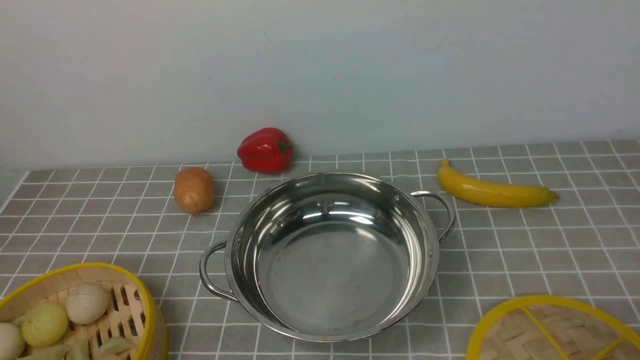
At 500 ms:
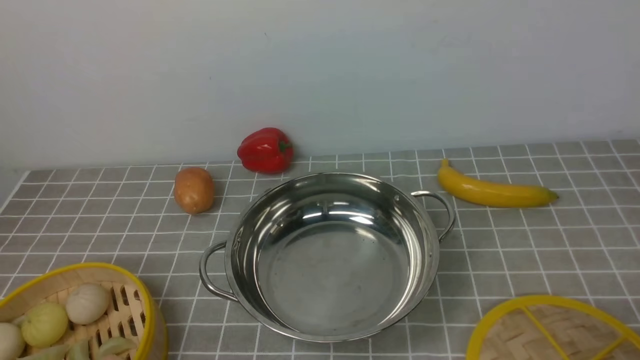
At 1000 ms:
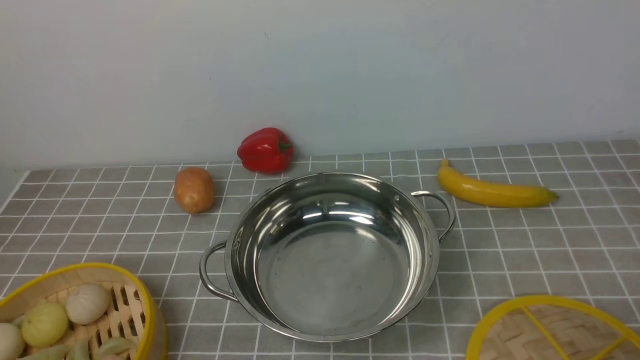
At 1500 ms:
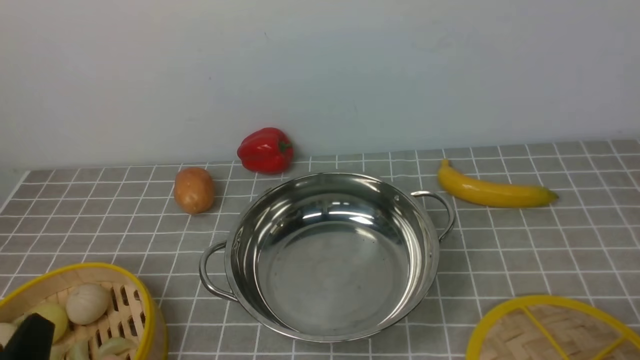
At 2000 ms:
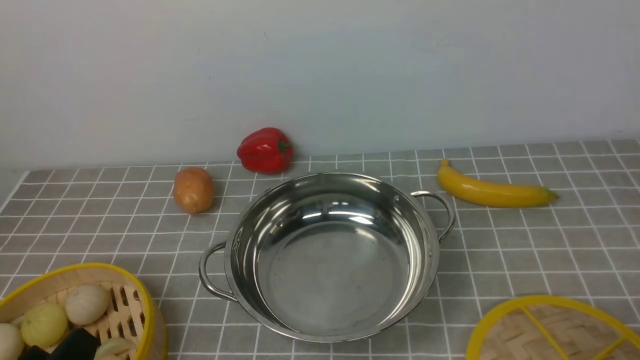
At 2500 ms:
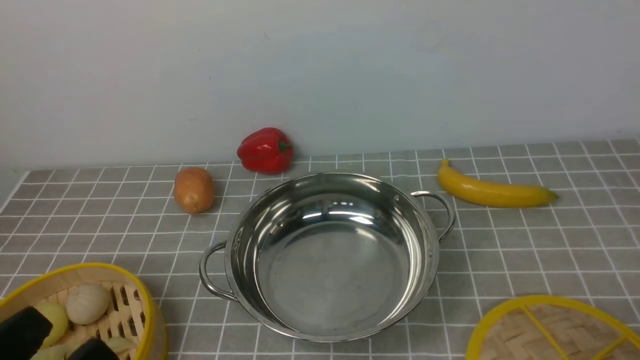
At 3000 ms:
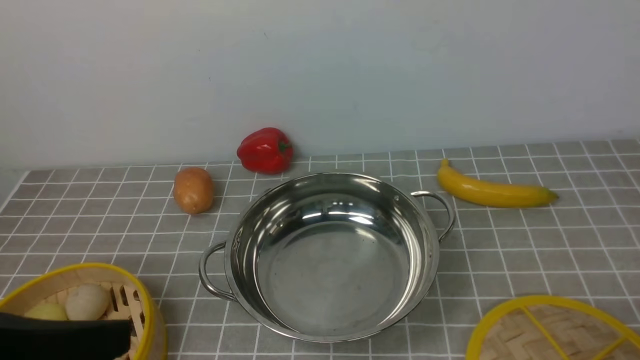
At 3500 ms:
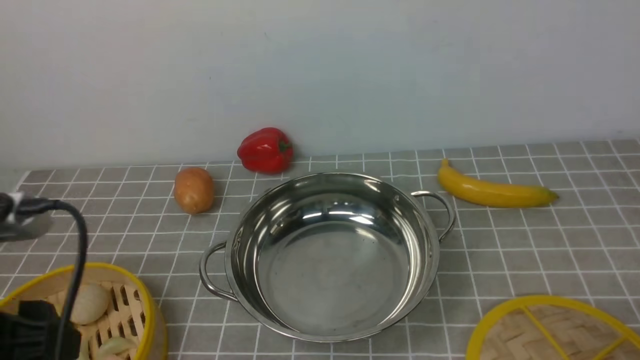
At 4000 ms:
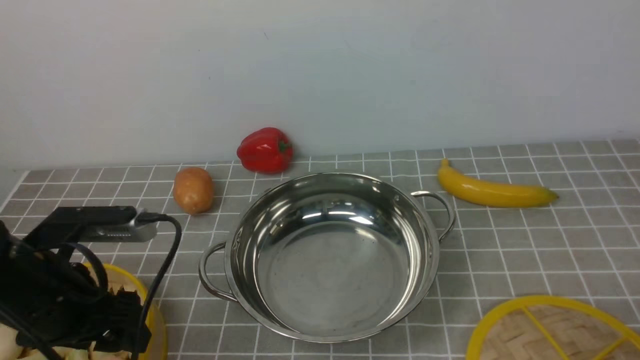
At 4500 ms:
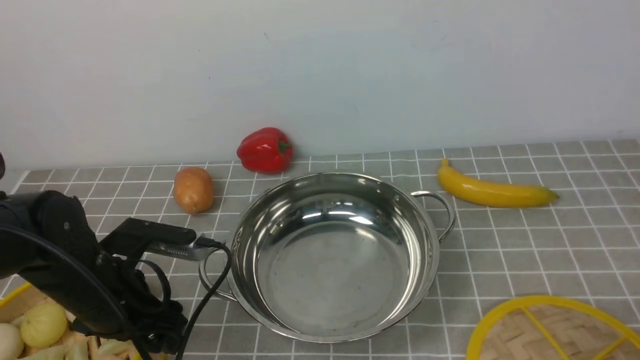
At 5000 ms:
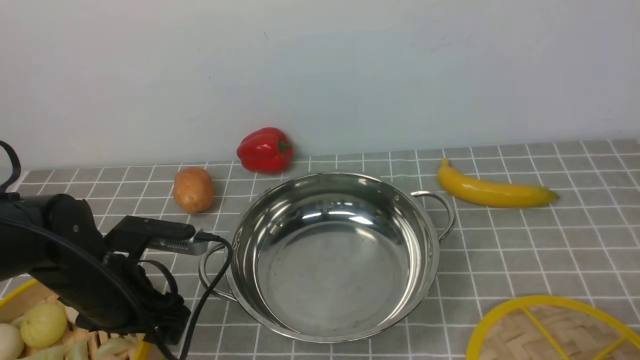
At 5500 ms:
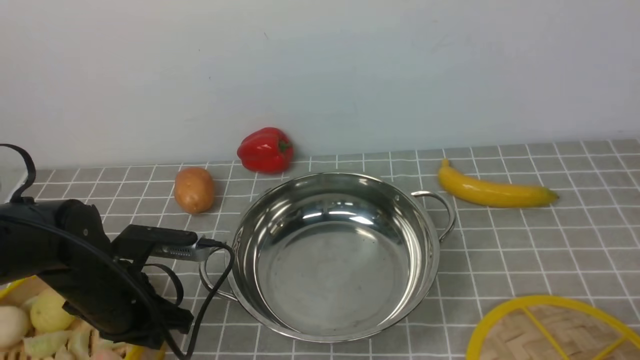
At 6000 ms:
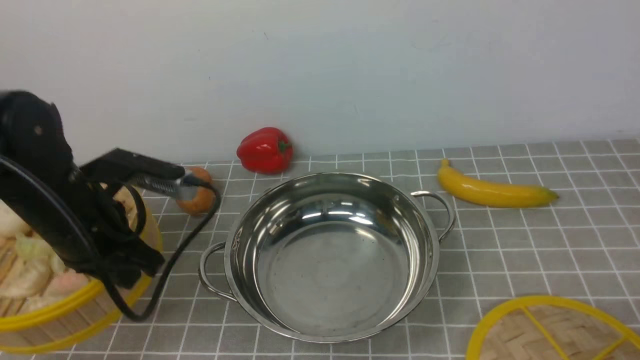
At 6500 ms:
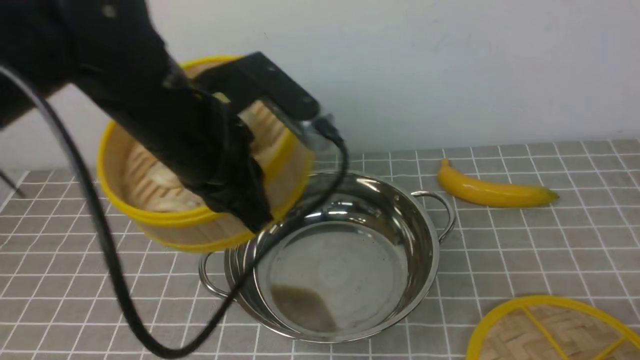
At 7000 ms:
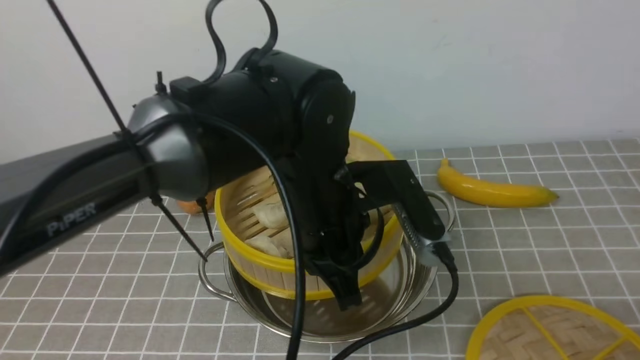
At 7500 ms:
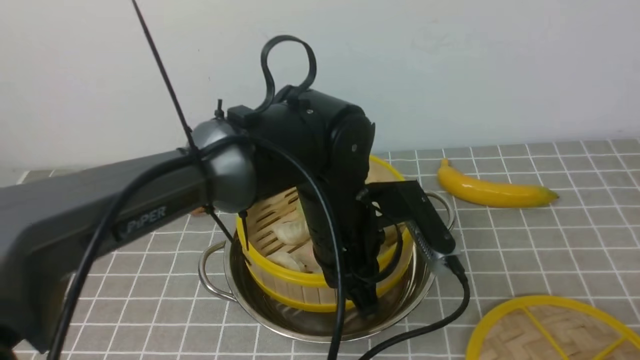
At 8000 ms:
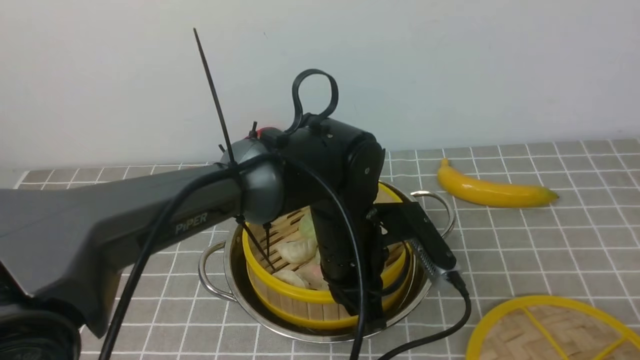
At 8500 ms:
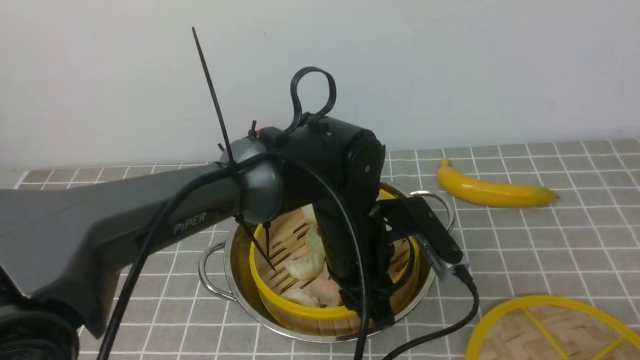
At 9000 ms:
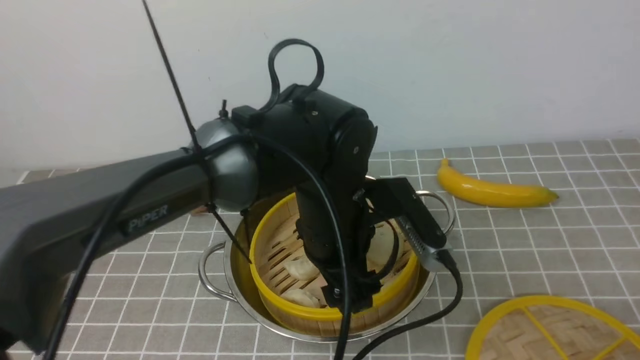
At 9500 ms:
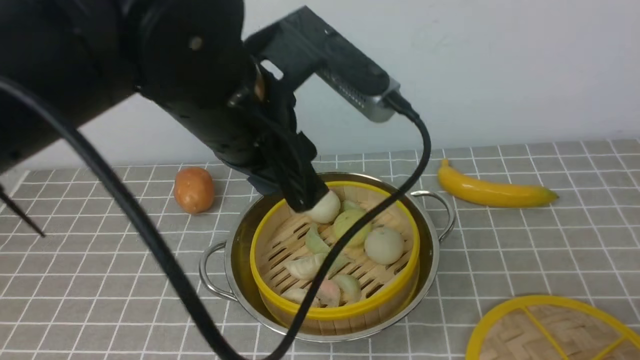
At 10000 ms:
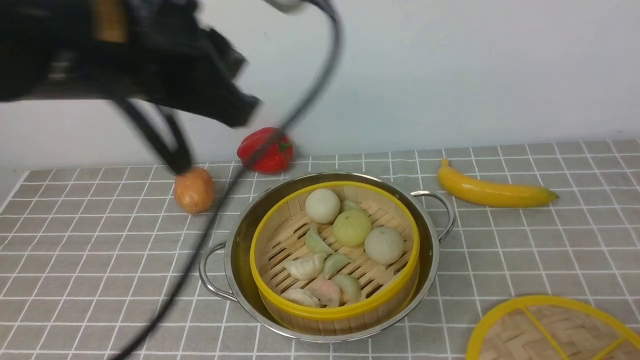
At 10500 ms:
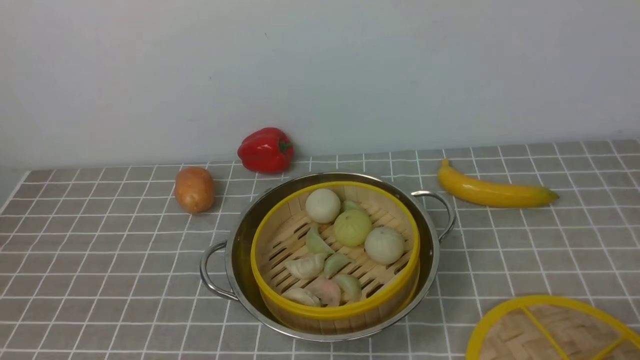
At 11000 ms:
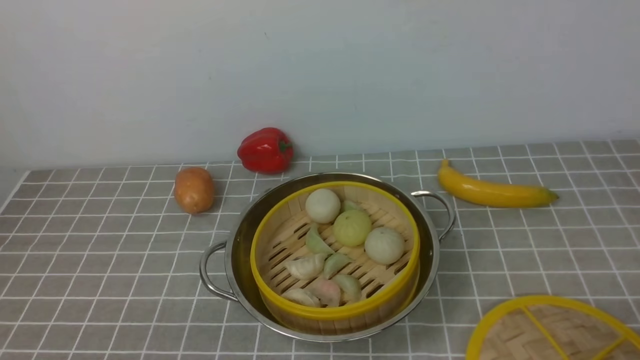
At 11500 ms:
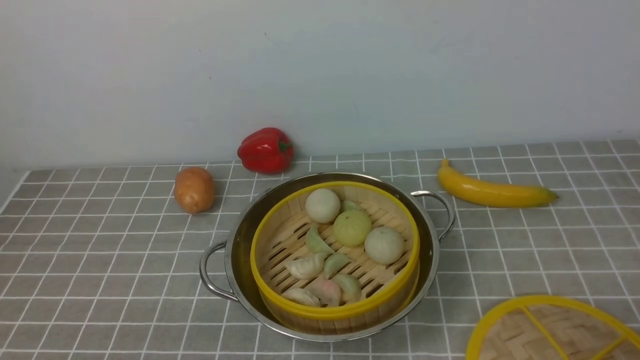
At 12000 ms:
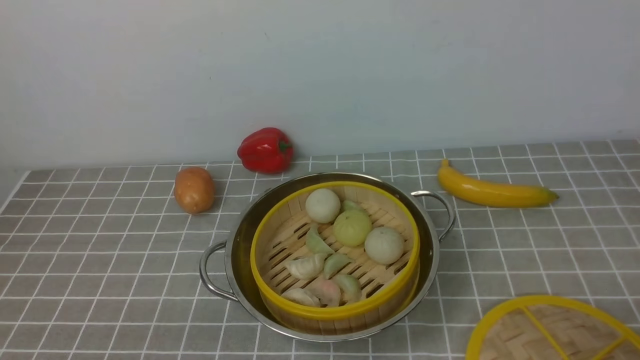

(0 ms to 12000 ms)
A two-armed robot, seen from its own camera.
Task of the whole recording: place the steamer in the pot on the grey tablecloth, and put the lid on the steamer.
Step, 0 ms - 5500 ms: use the left arm to lift the steamer closest to it.
Step, 6000 ms - 8500 ms: use the left arm to put the steamer into the iron steamer pot in the middle.
2000 ms - 4000 ms: The left gripper heads forward, covering about 15 cm.
4000 ms - 6000 ms: The left gripper goes approximately 5 cm forward, travels downward and back again, roughly 5 cm each way, and closes up.
6000 ms - 8000 ms: The left gripper shifts approximately 25 cm to the right.
8000 ms - 10000 ms: The left gripper heads upward and to the left, covering about 30 cm, and opens and closes again.
10000 ms - 12000 ms: The left gripper is displaced downward, backward and to the left by roughly 30 cm.

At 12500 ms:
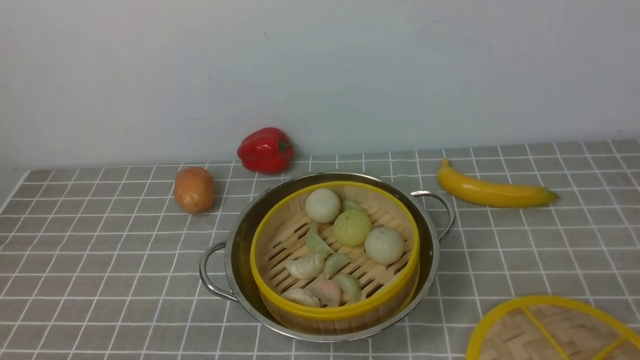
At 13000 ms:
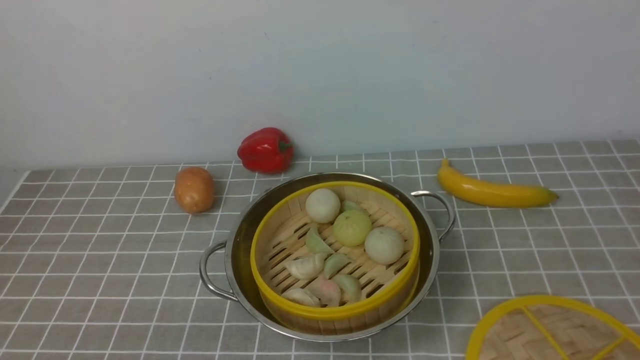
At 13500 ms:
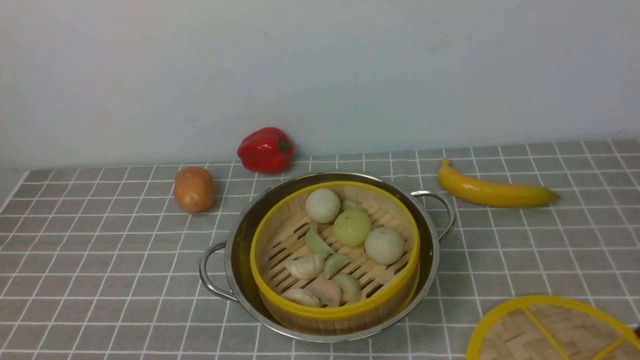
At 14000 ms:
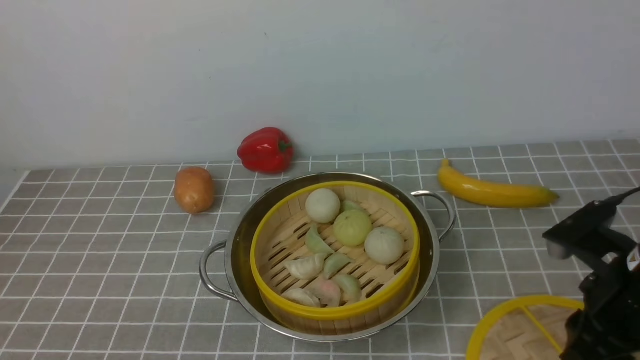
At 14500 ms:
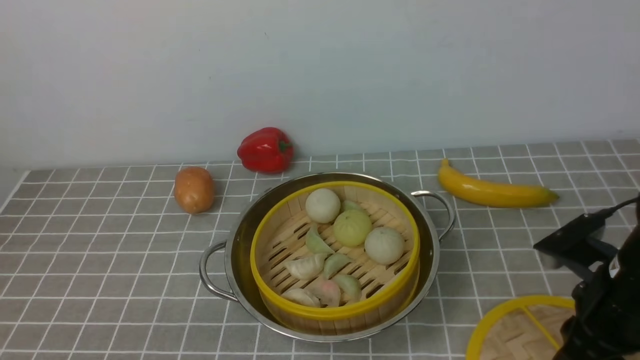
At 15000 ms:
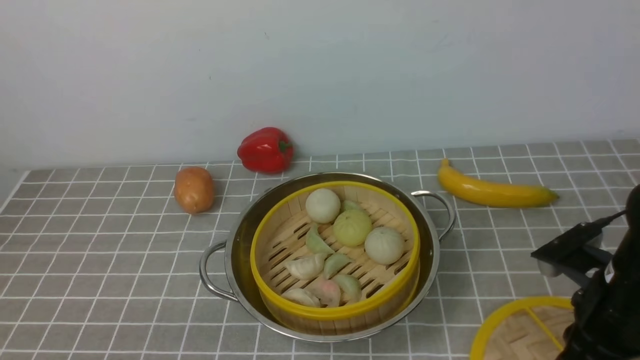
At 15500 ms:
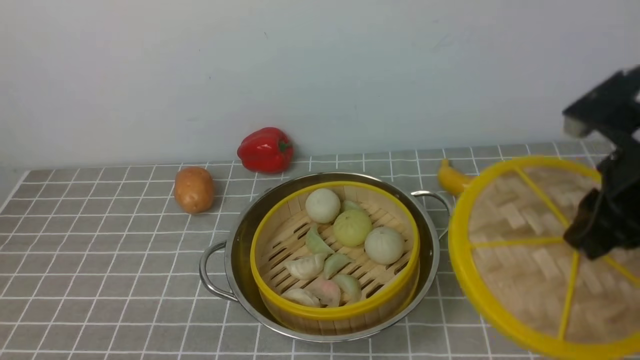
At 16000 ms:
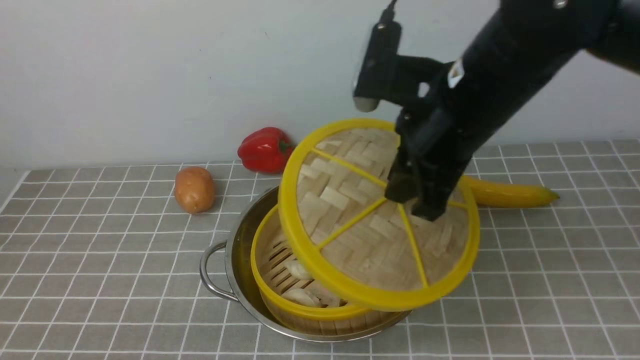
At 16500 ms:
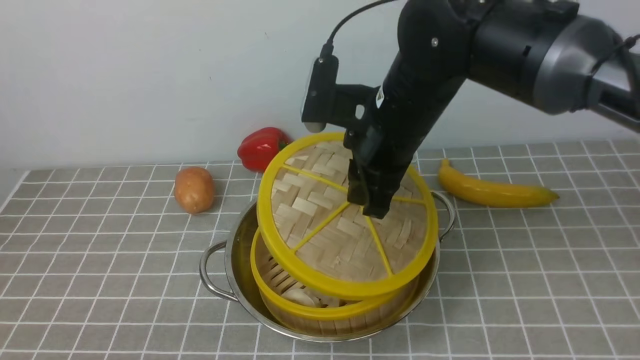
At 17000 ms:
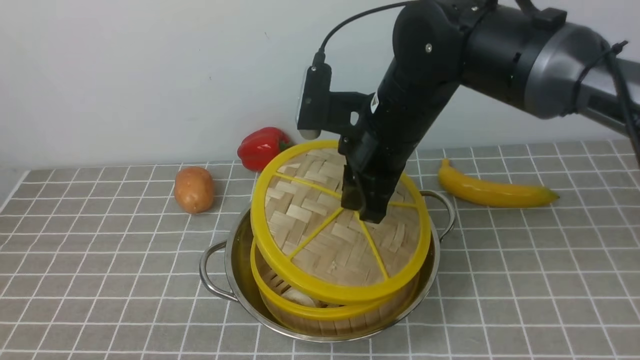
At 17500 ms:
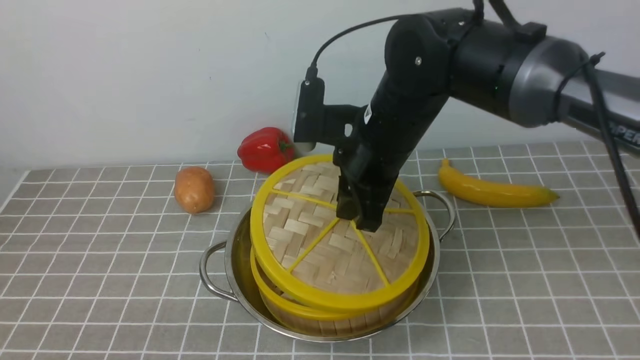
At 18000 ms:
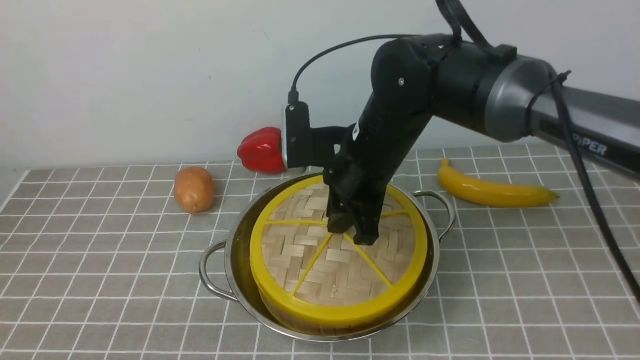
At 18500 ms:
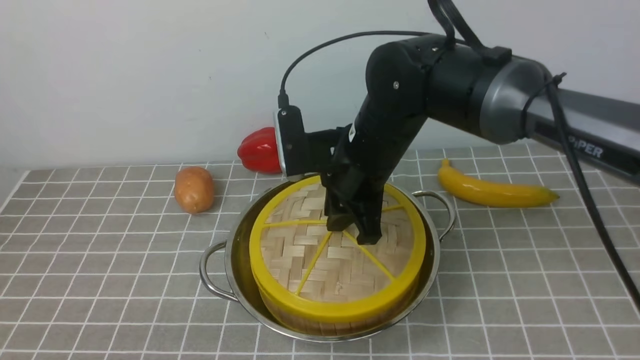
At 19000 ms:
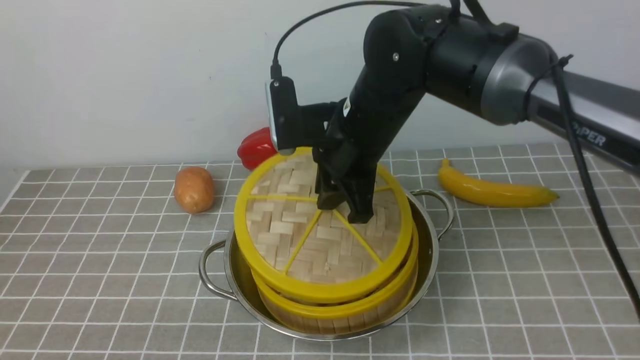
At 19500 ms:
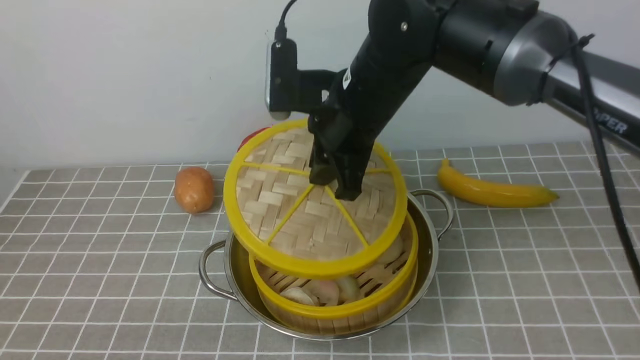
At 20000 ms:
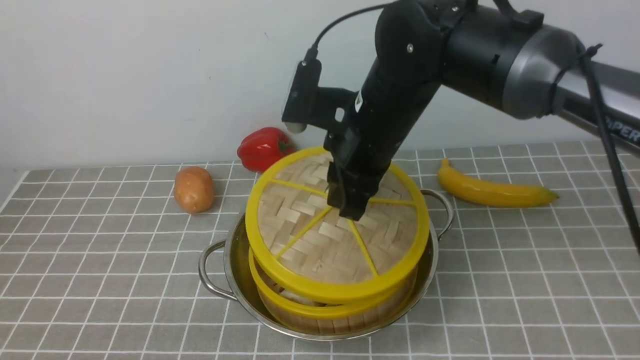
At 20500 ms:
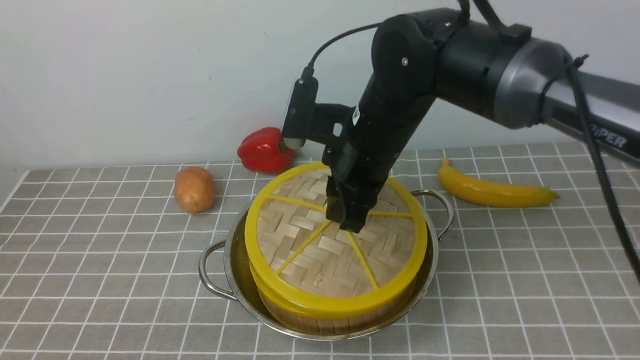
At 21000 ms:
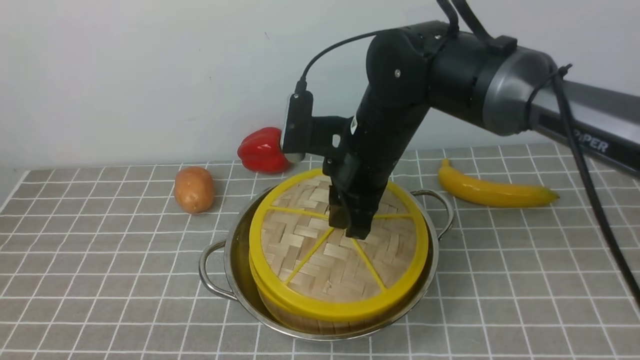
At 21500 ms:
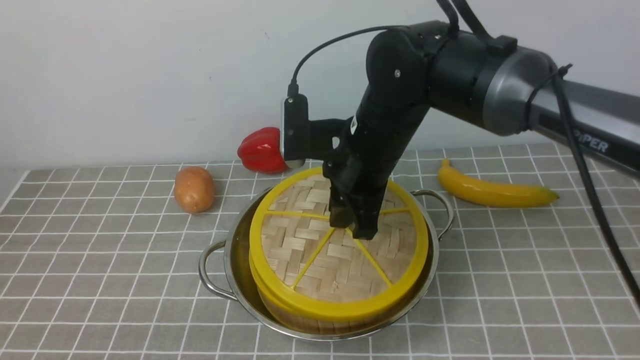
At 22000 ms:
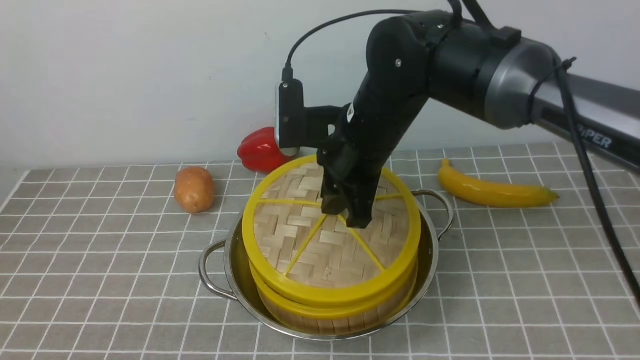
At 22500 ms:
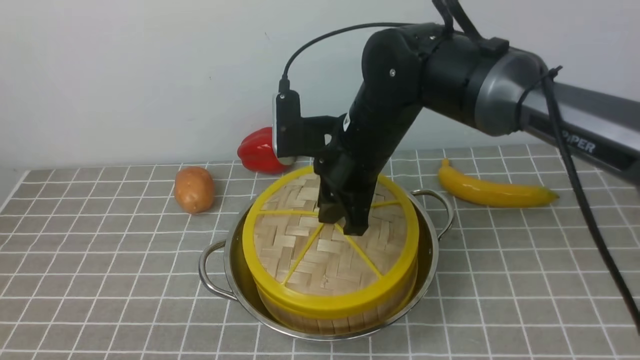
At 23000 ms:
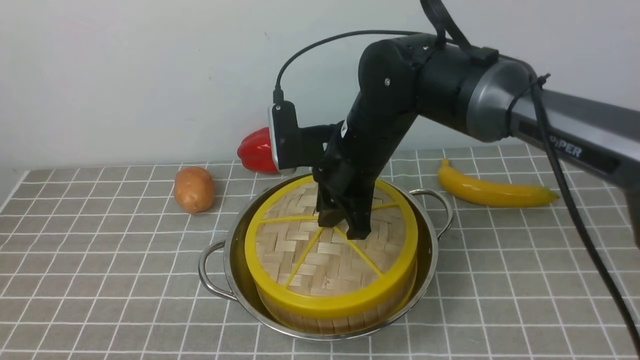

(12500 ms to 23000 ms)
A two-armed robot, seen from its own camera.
Task of the whole recording: place the steamer in the pot on the grey tablecloth, and put the lid on the steamer.
Step, 12500 ms - 15000 ms: use the right arm to lift the lid of the steamer.
12500 ms - 14500 ms: The right gripper travels forward by about 20 cm.
14500 ms - 16500 ms: The right gripper shifts roughly 25 cm to the left, forward and upward.
19000 ms - 23000 ms: The grippers make only small movements.
